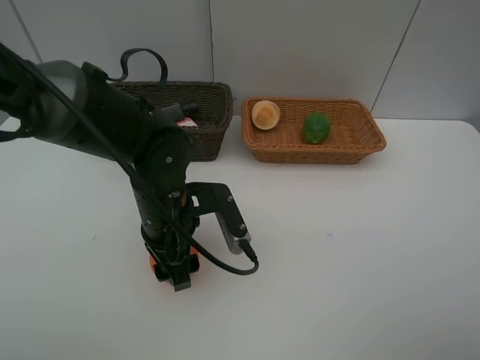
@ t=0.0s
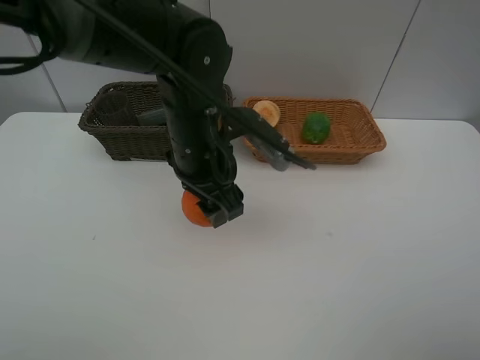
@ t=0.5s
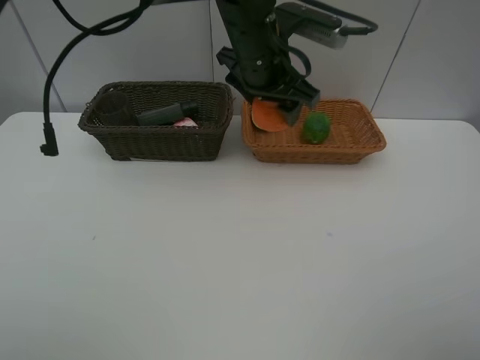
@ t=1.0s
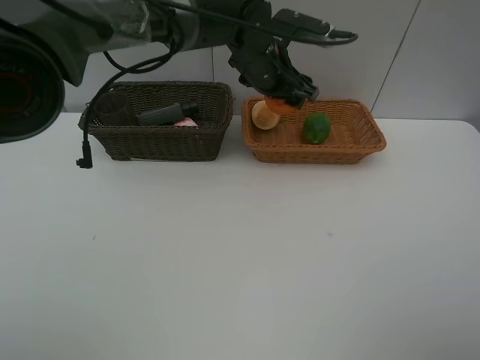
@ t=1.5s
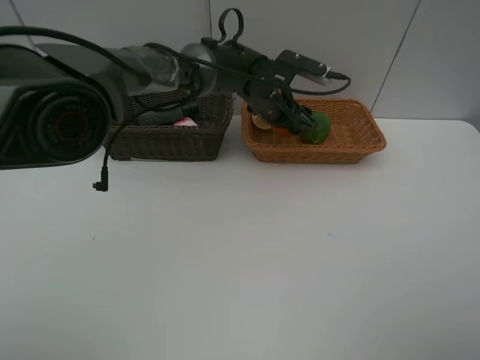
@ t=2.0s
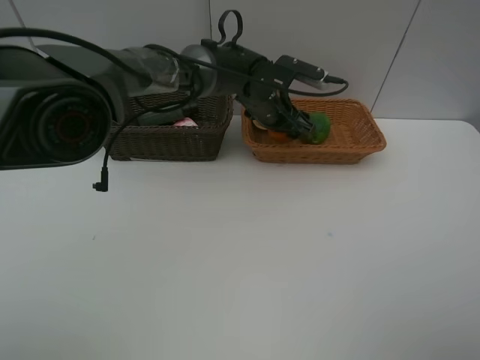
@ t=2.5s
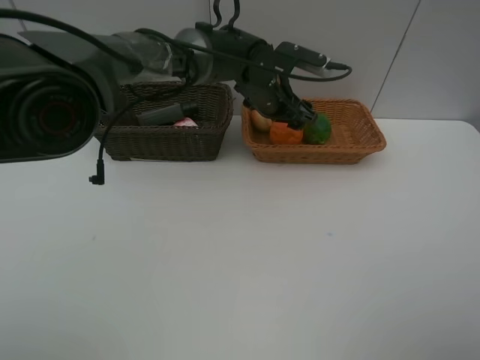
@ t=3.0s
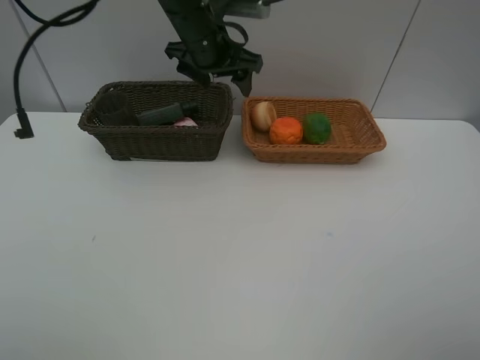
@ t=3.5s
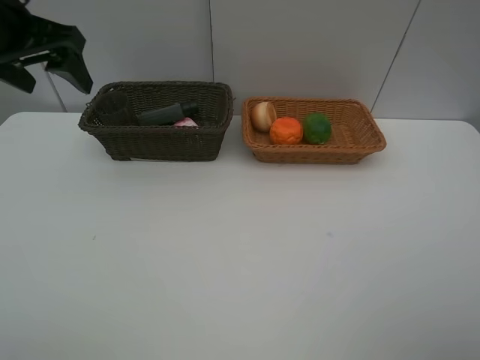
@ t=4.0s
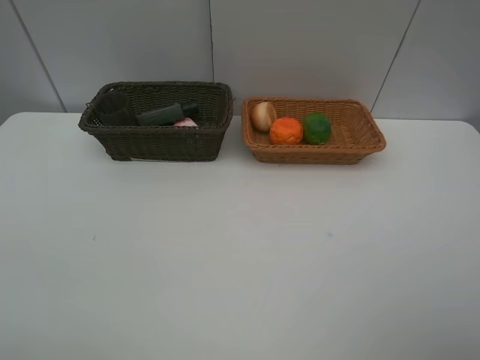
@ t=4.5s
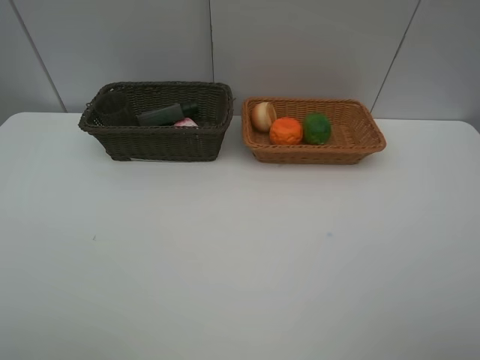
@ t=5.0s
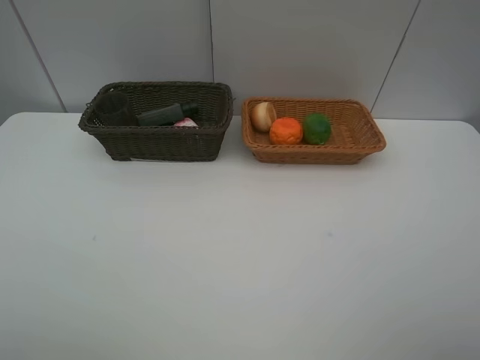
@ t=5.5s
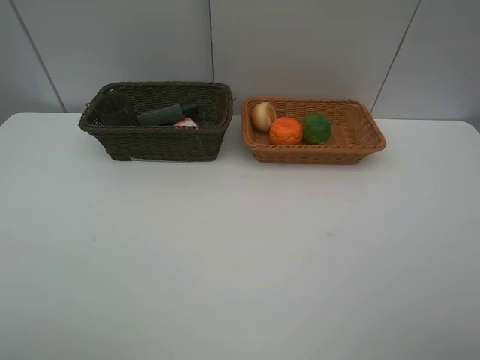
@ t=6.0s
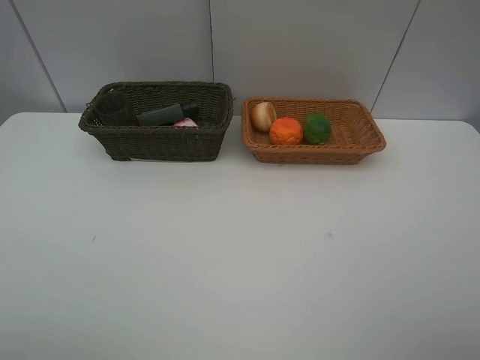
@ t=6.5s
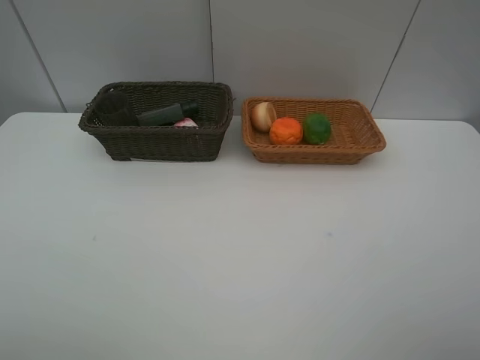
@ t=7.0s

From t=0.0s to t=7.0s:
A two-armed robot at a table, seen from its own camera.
Task of the whole recording: place multiple objects separately in different baskets.
Step, from t=0.5s to t=3.0s: Place the orange in the light basket with left gripper.
From t=0.0s to t=2.0s: The left gripper is displaced forward and to the right by some 25 cm.
From t=2.0s to t=3.5s: The left gripper shifts some 15 cm to the left and upward.
From t=3.5s to t=5.0s: The left gripper heads backward and to the left, covering roughly 50 cm.
